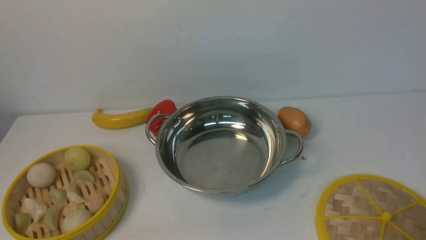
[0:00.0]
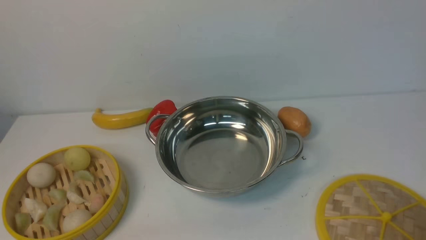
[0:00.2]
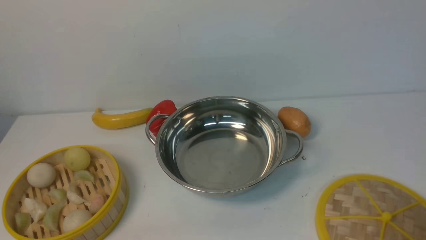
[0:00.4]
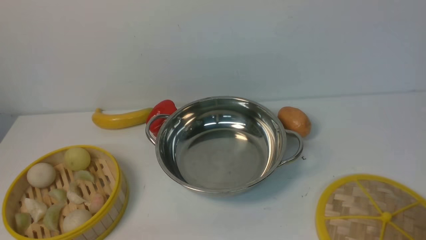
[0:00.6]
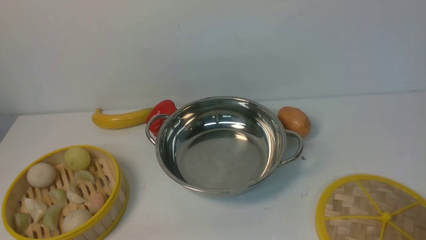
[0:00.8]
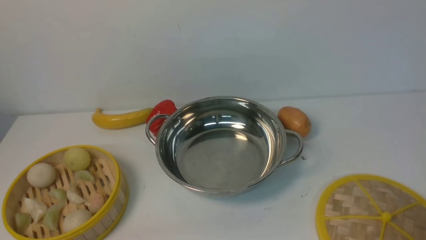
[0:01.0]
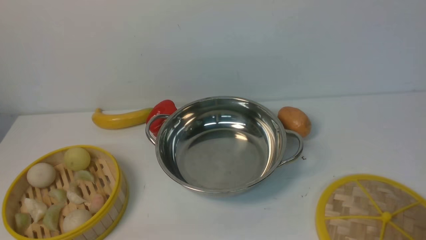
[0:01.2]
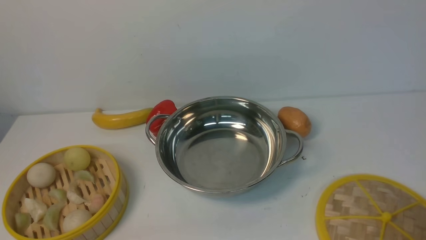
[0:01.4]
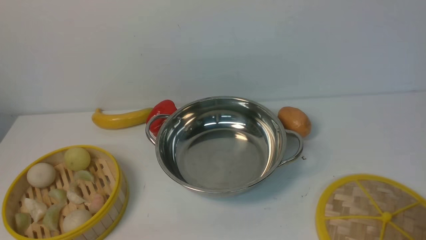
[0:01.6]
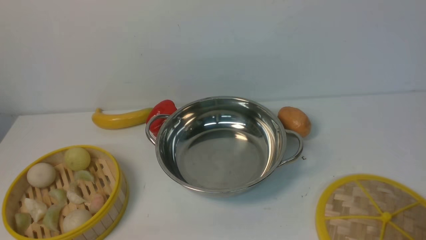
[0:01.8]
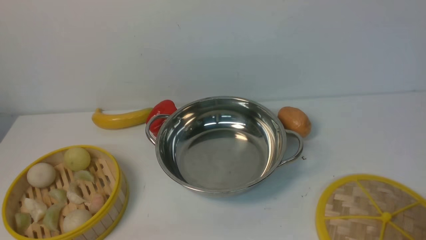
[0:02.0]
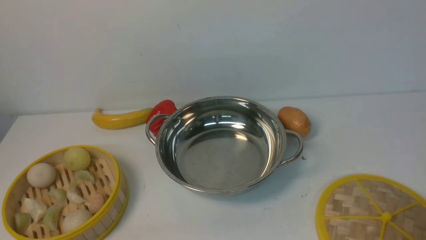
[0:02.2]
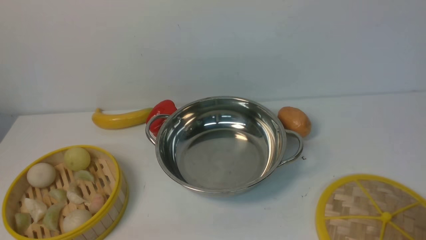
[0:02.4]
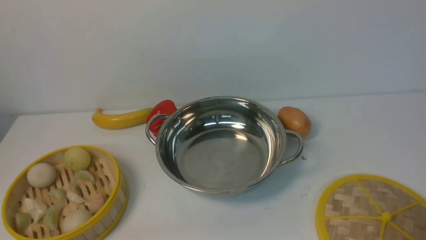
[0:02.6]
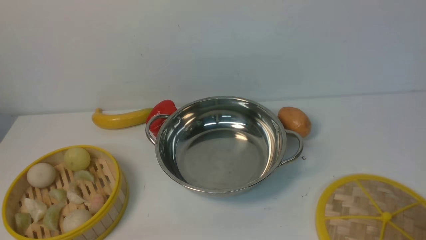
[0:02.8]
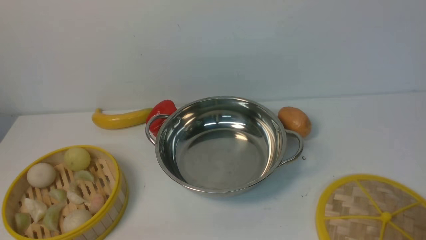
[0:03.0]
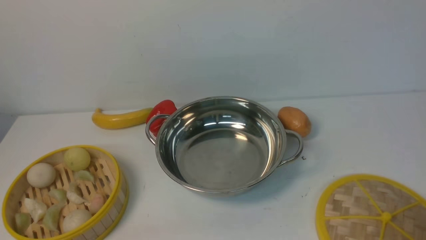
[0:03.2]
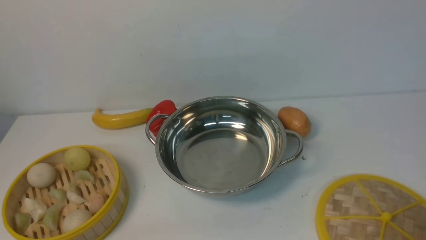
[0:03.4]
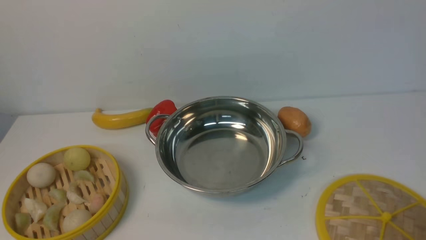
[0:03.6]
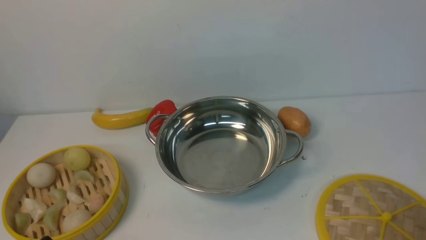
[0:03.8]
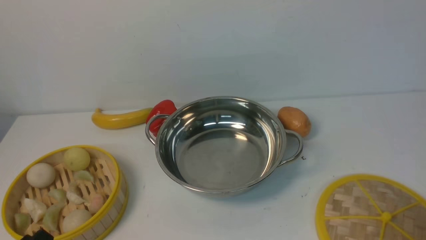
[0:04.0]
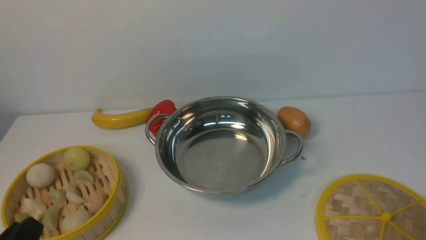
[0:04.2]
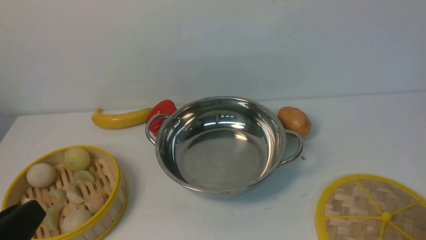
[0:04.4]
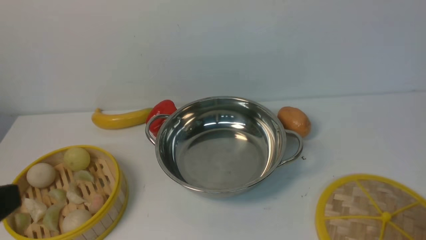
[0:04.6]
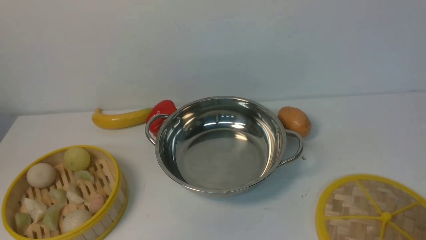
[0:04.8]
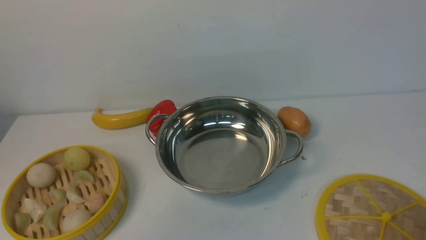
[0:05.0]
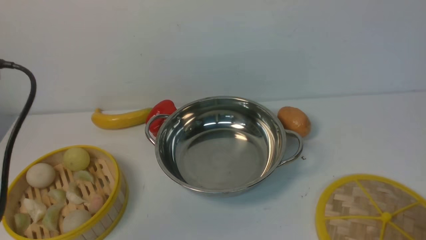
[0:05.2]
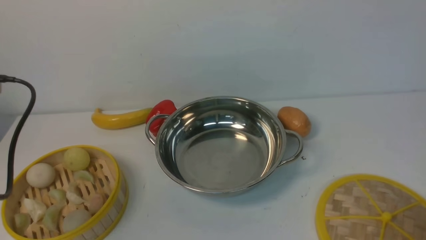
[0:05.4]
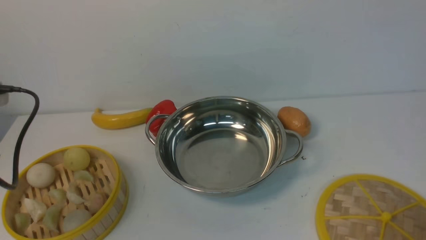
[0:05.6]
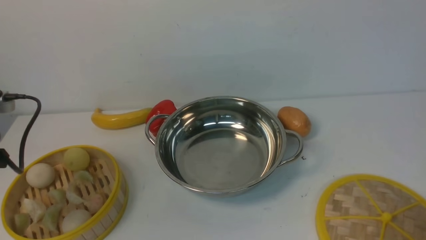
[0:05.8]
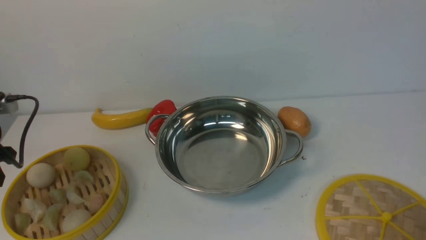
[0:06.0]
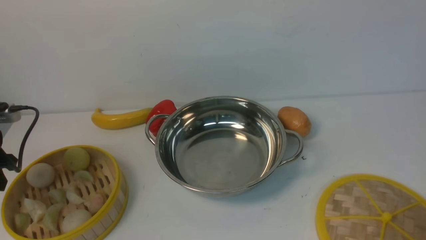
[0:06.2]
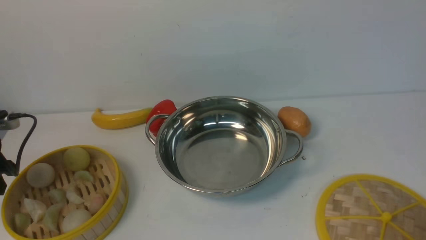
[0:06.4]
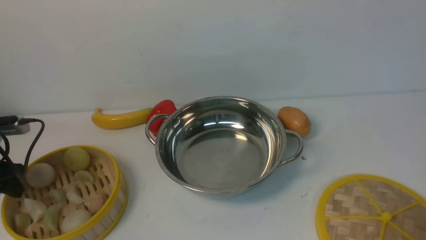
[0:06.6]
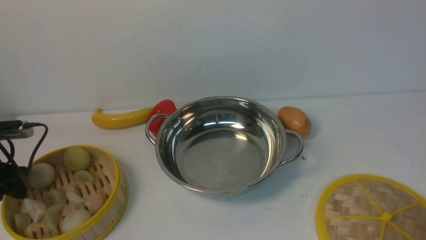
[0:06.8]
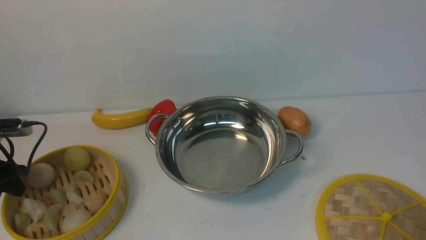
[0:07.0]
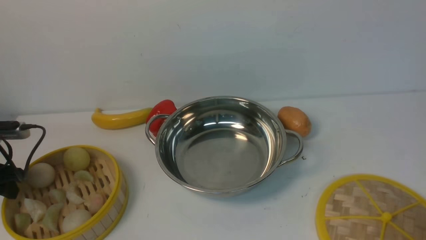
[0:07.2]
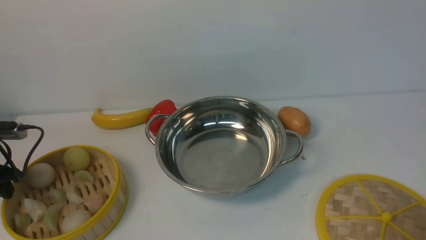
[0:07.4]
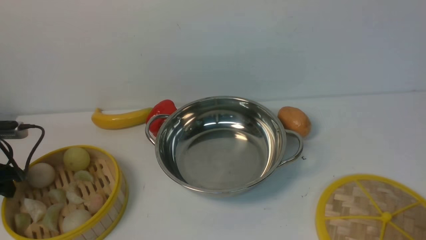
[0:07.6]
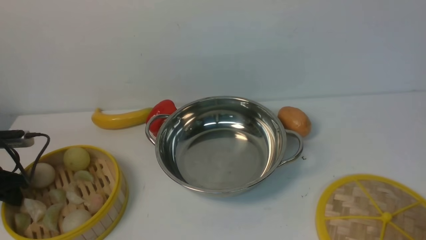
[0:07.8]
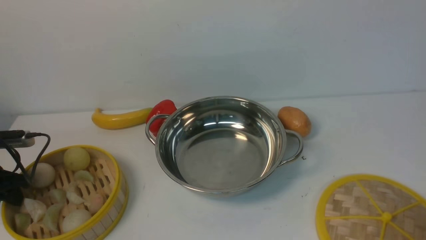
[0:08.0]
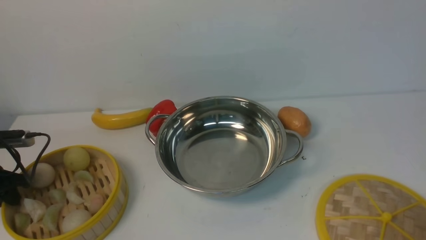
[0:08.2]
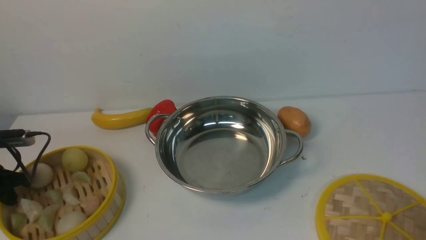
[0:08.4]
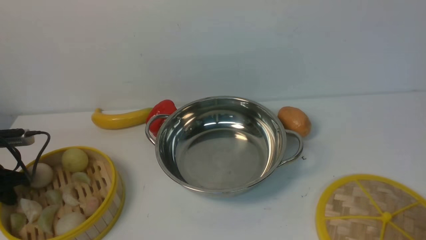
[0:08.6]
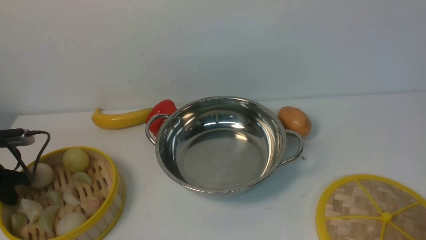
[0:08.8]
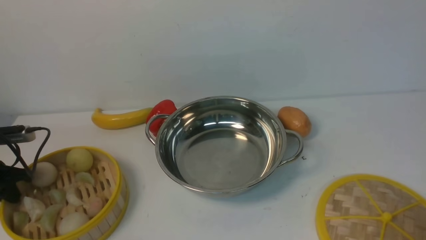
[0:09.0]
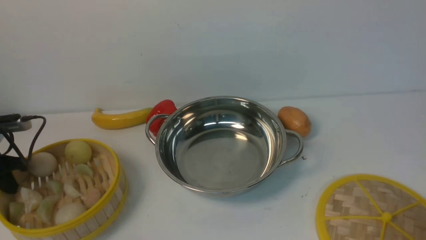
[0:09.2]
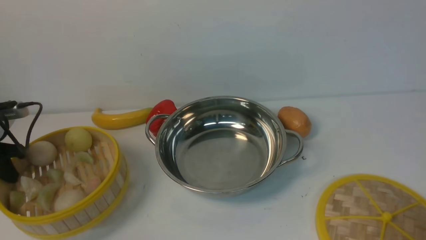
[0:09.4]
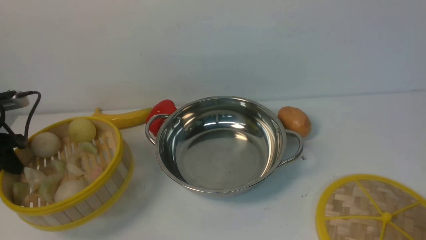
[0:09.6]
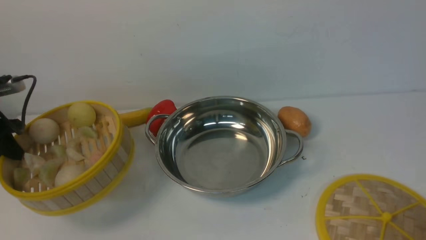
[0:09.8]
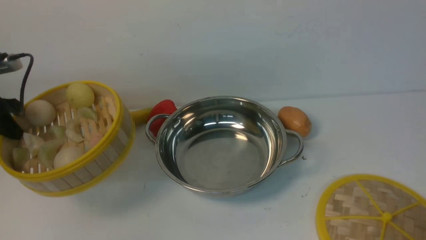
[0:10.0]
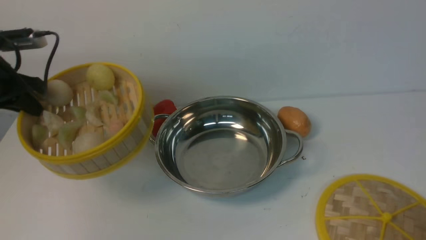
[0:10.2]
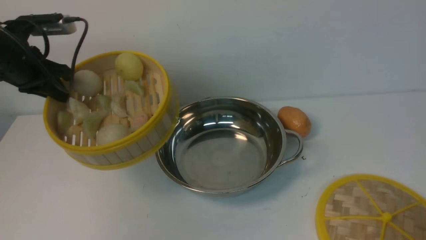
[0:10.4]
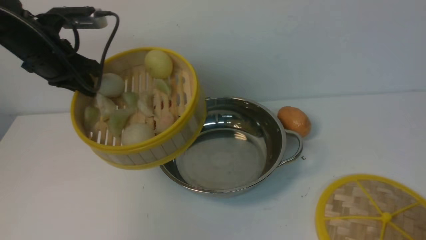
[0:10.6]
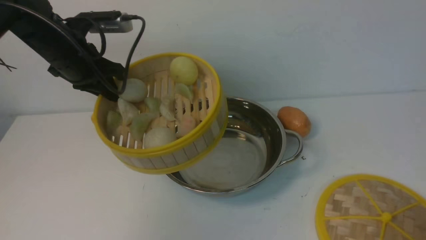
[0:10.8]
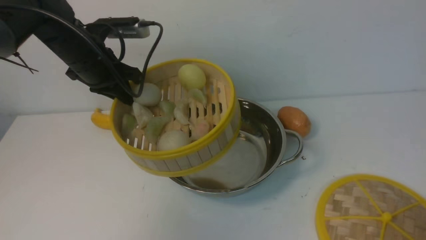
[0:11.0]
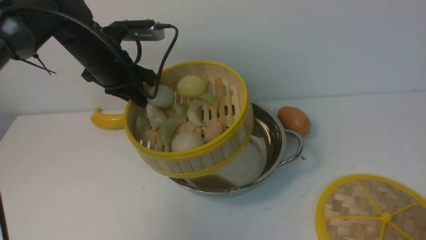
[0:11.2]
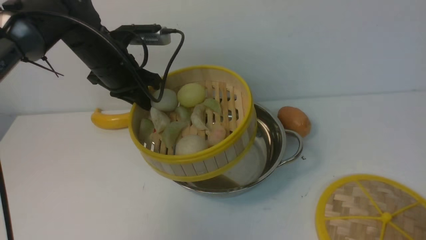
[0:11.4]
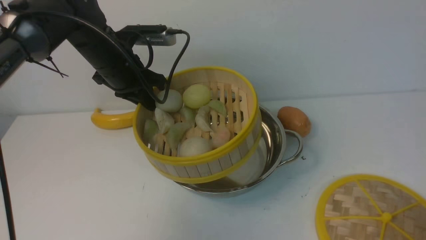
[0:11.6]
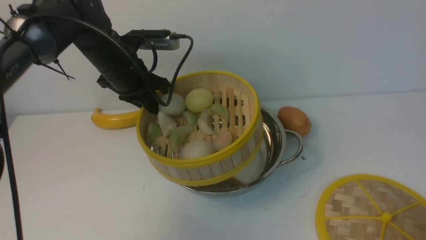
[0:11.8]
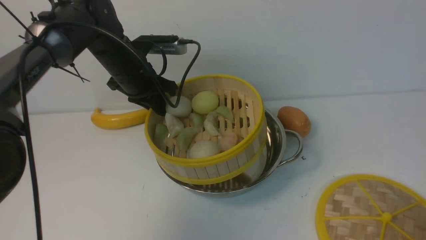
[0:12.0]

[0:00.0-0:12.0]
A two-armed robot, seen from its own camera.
Task of the whole recording: place the steamer in the pot on the white table, and put the lid on the steamer.
Step, 0:00.0 to 0:09.6: use the left arm to lift the steamer closest to it.
0:00.0 to 0:03.0: Neither gripper changes place.
0:03.0 to 0:04.4: The left gripper is displaced upward by about 15 cm.
0:04.4 to 0:06.0: The left gripper is displaced forward and to the left by about 25 cm.
0:06.0 to 0:07.6: The left gripper goes roughly 10 cm downward.
0:07.6 to 0:09.0: The left gripper closes up.
0:09.0 to 0:10.4: The left gripper heads upward, to the right and forward, covering some 20 cm.
0:10.4 to 0:12.0: The left gripper heads to the right, covering roughly 15 cm.

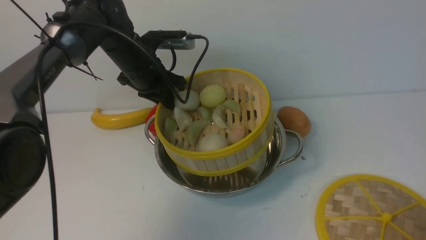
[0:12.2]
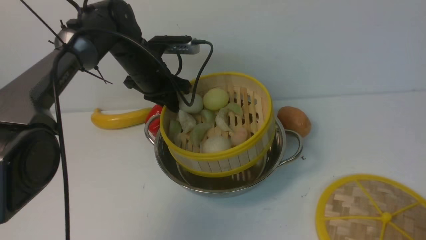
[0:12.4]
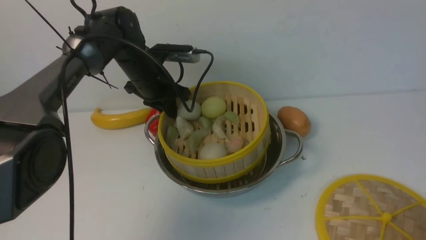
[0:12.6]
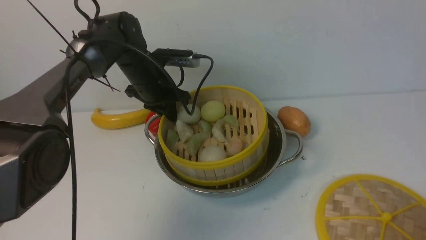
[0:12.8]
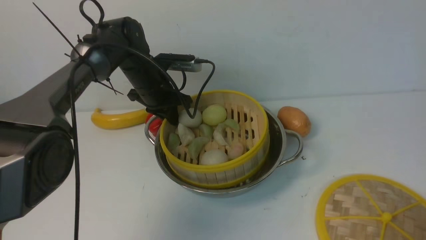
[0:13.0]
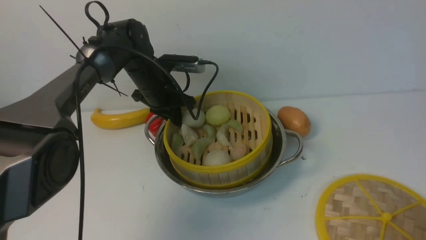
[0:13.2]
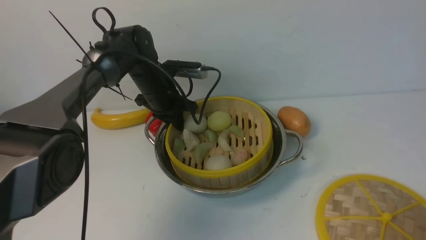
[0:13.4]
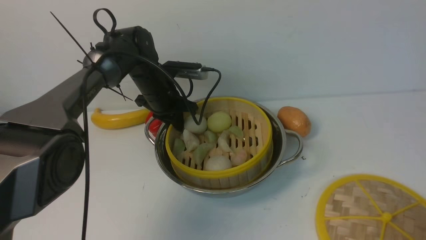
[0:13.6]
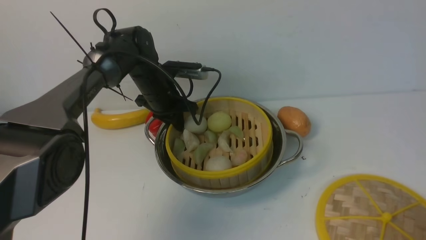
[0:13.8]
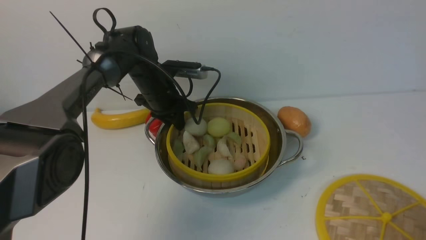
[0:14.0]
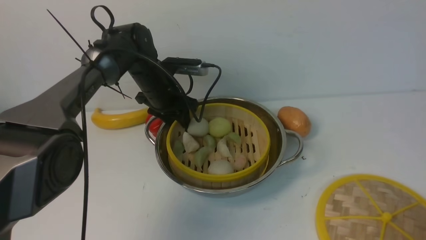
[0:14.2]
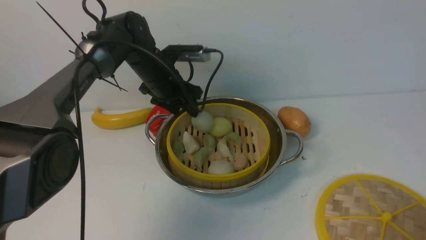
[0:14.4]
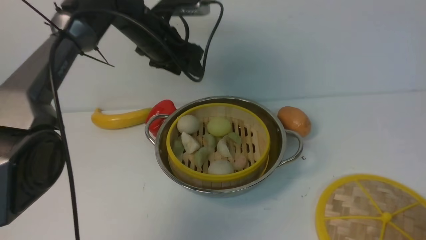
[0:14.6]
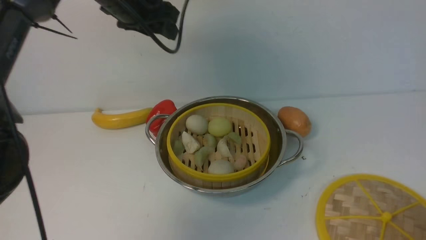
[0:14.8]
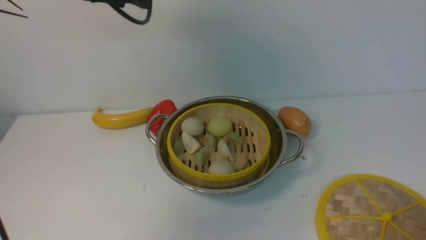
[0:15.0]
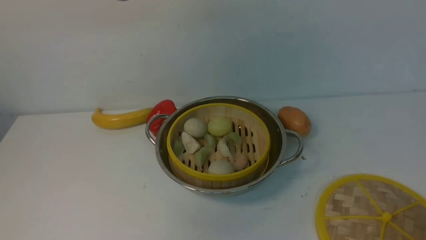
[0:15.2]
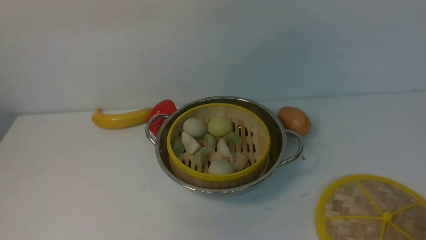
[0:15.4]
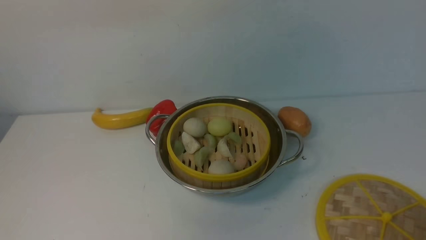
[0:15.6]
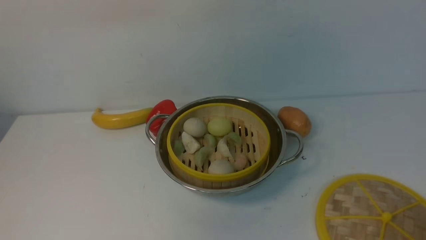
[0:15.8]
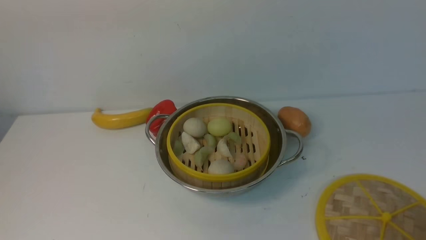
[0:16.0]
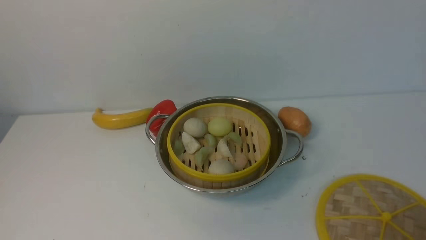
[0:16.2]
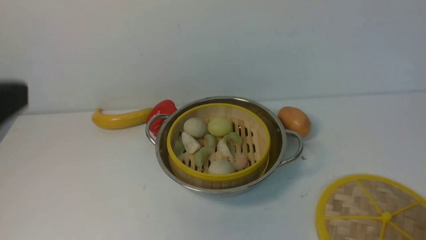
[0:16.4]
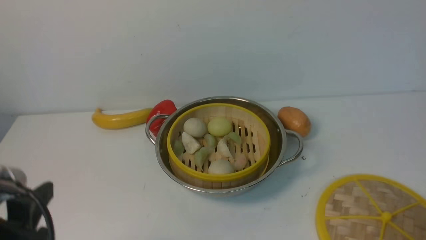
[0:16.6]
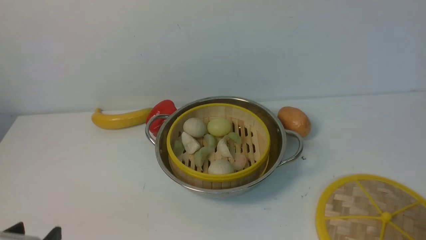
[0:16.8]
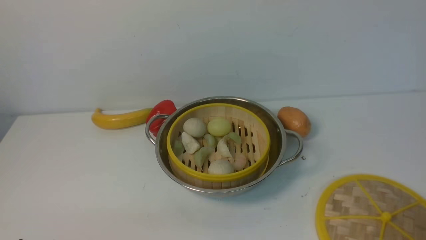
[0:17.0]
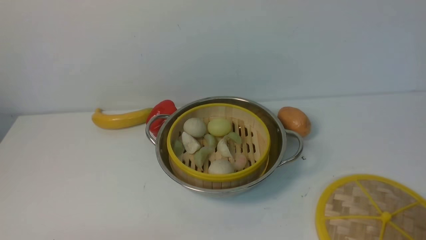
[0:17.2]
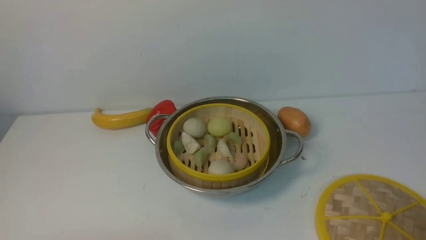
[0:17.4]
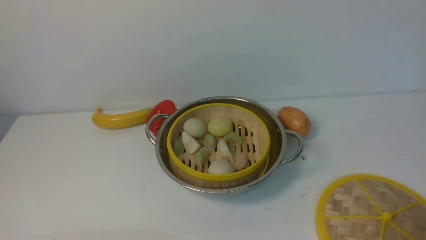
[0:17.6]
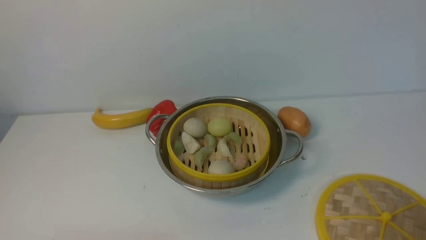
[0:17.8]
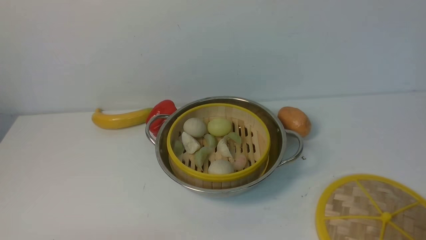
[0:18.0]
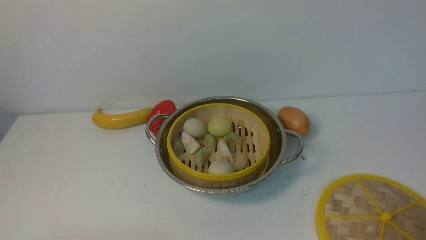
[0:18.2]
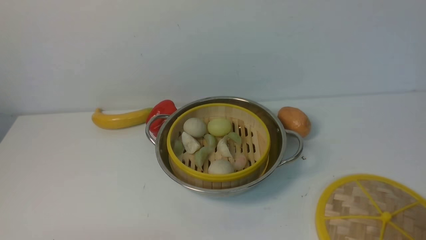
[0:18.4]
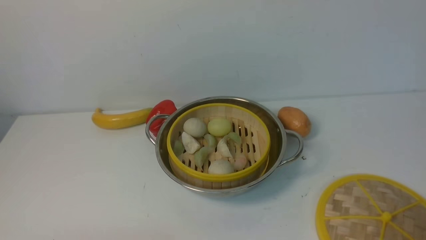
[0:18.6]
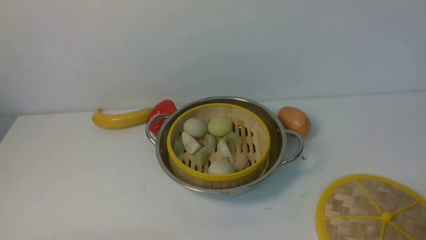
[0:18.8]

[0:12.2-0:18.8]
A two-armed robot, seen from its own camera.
Task of the whole recording: place the steamer in the pot on the white table, and put the lid on the steamer.
Step, 0:12.2 to 0:15.2: use the left arm to put the steamer into the iron steamer pot in the middle.
0:12.2 to 0:13.8: The left gripper is displaced downward by roughly 5 cm.
0:13.8 to 0:15.4: The left gripper shifts approximately 30 cm upward, and opens.
0:15.4 to 0:17.2: The left gripper moves downward and backward, roughly 50 cm.
